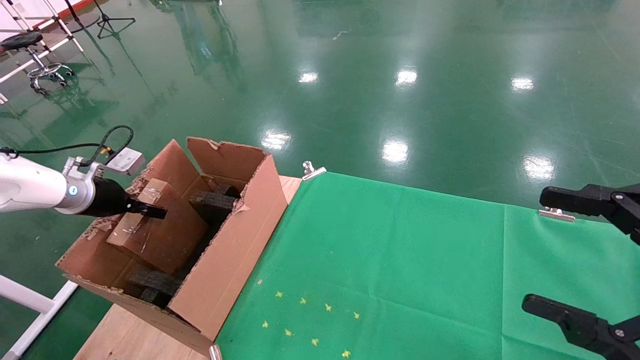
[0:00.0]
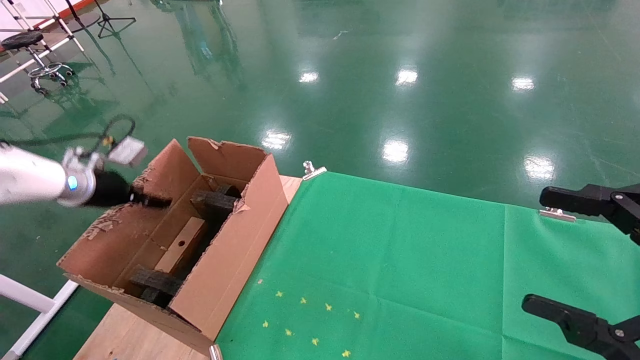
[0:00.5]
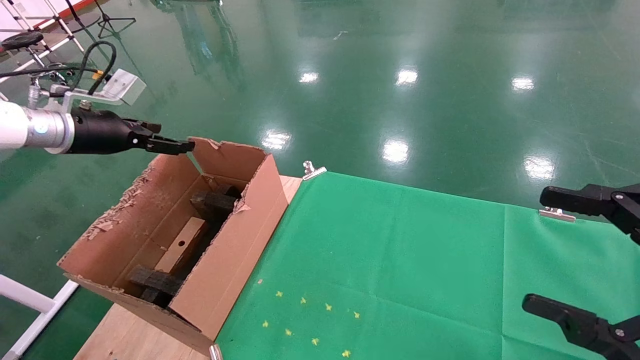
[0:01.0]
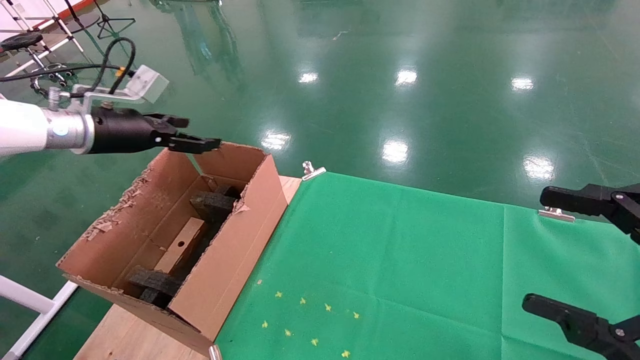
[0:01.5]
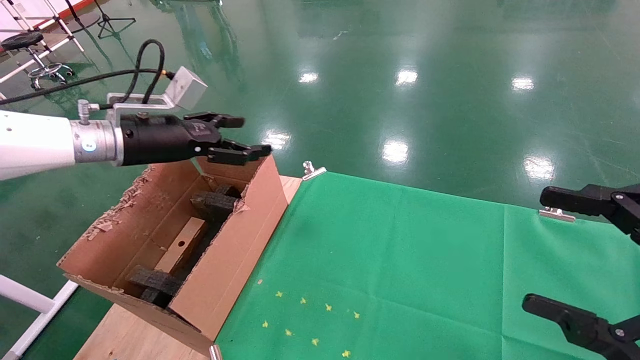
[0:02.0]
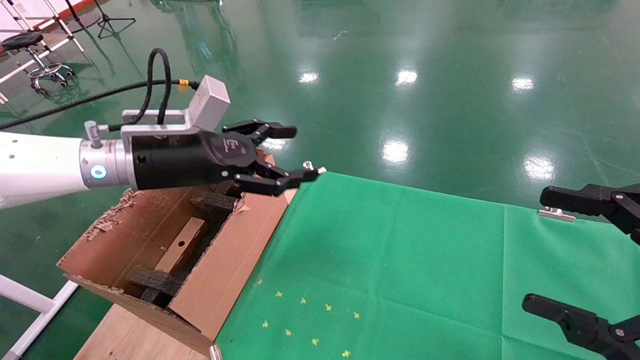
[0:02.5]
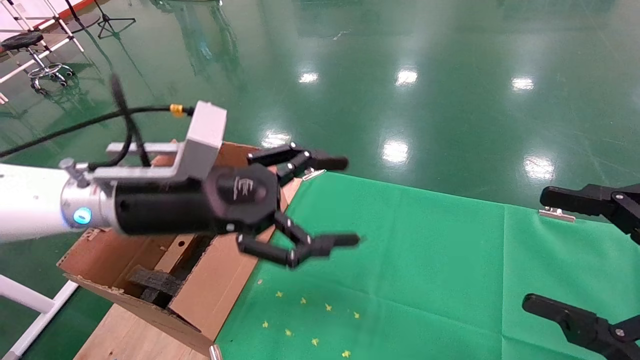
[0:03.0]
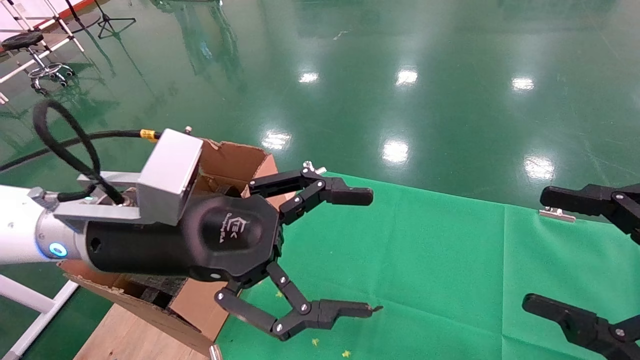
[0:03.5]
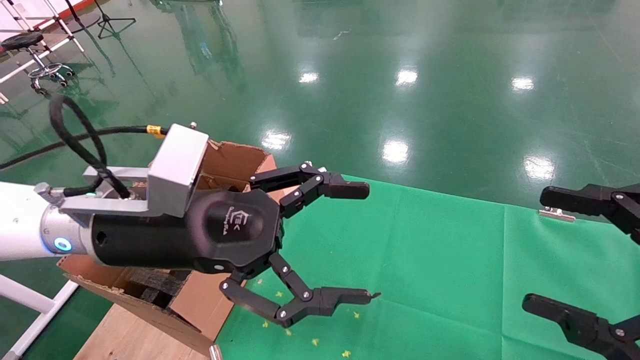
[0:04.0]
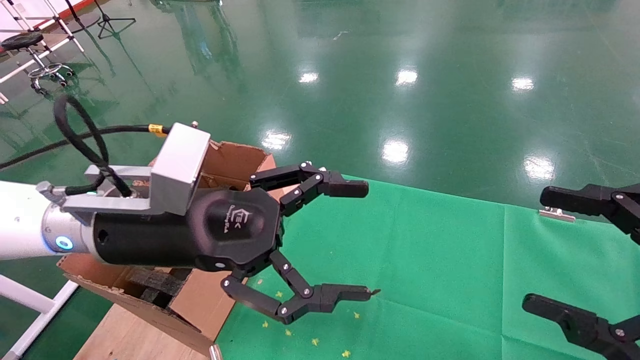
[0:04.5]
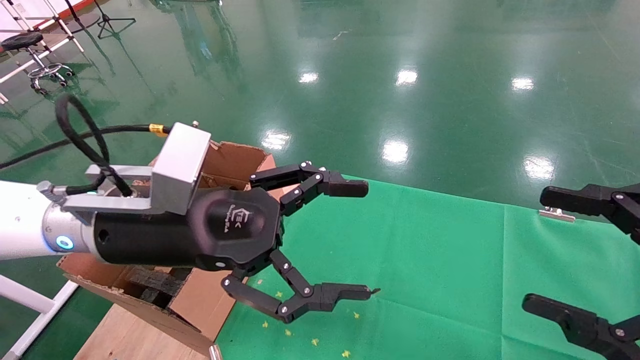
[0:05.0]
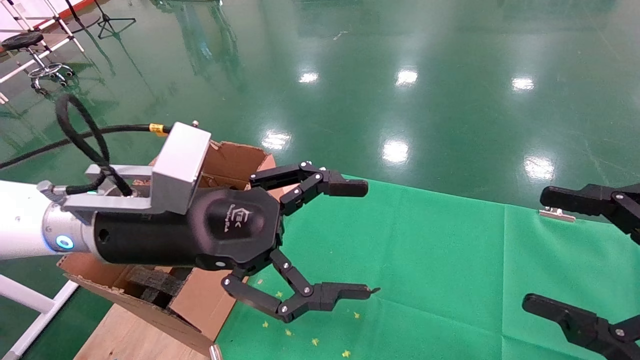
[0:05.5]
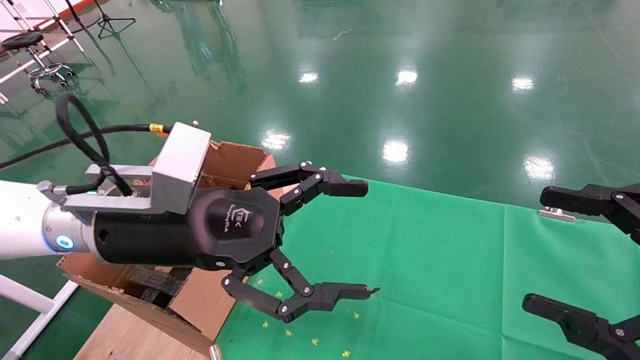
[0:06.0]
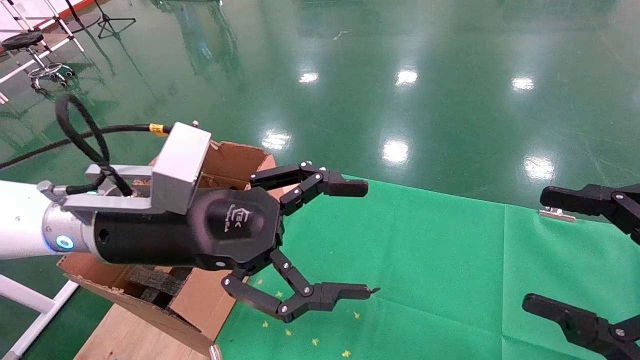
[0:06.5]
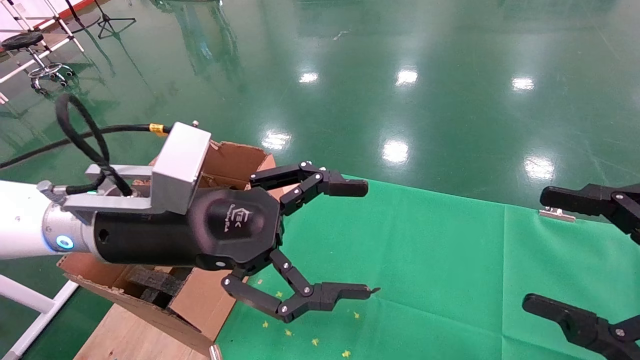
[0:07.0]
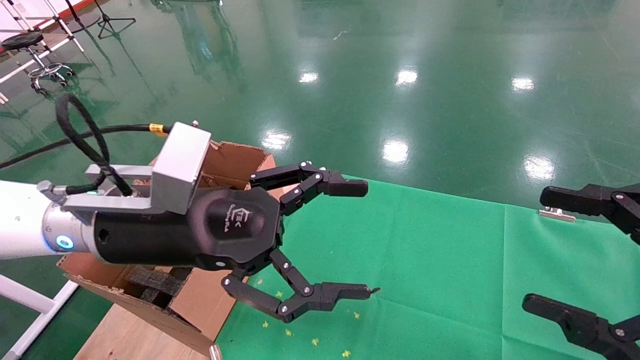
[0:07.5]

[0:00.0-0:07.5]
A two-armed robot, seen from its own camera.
Task of the whole recording: using a robotic arm to pick up a cardboard box and palace it the carton.
0:00.0 to 0:02.0: The left gripper heads to the right and upward, covering some 20 cm, and opens.
0:02.0 to 0:04.0: The left gripper goes some 20 cm to the right and backward.
0:04.0 to 0:07.5: Both grippers stay about where they are.

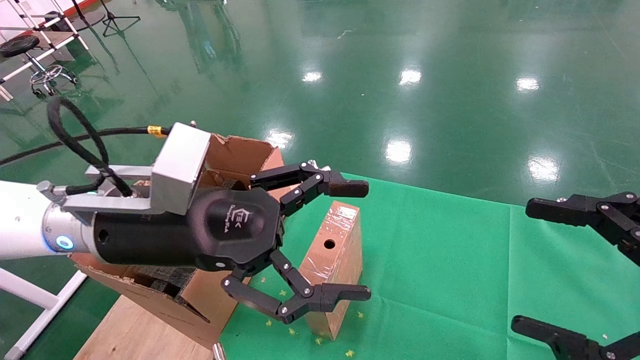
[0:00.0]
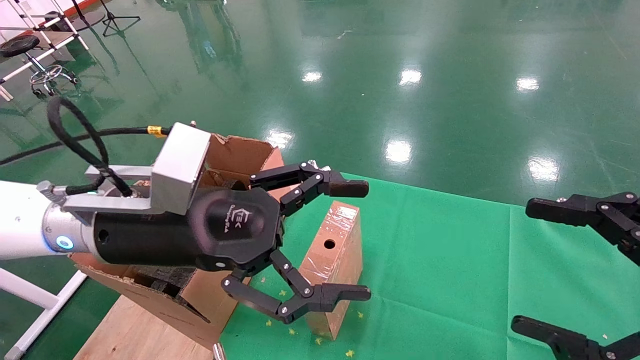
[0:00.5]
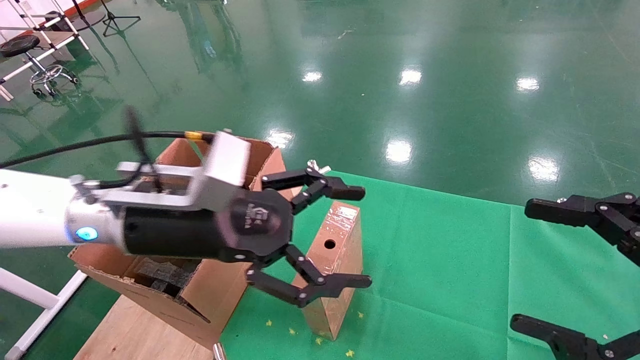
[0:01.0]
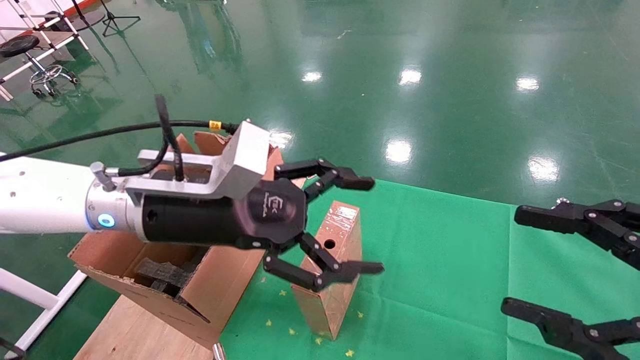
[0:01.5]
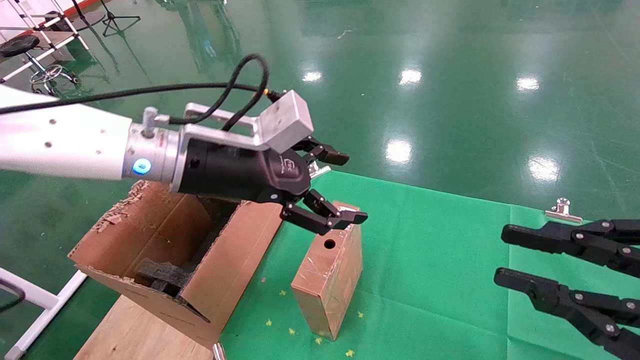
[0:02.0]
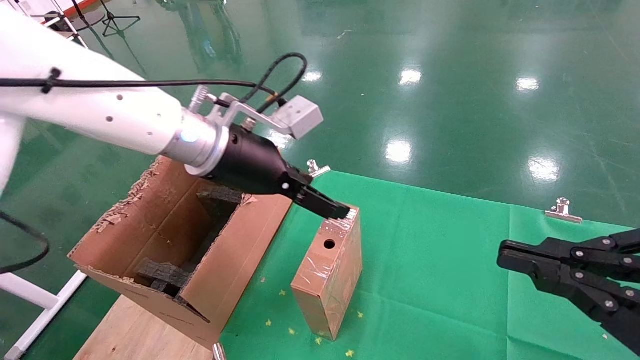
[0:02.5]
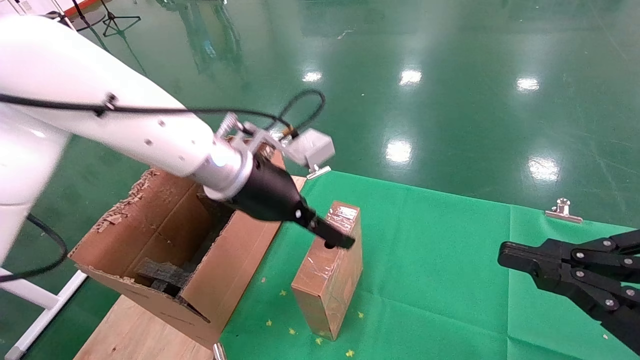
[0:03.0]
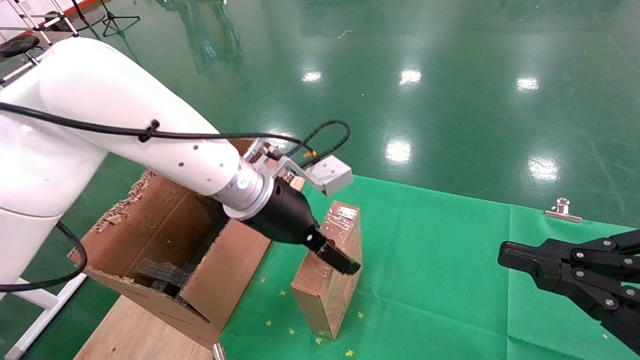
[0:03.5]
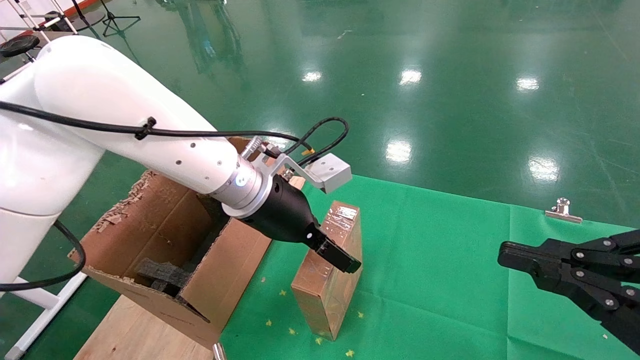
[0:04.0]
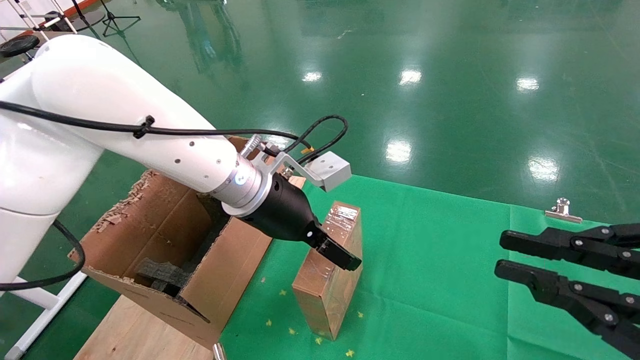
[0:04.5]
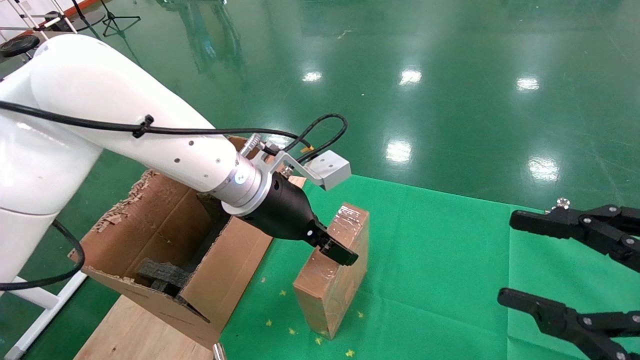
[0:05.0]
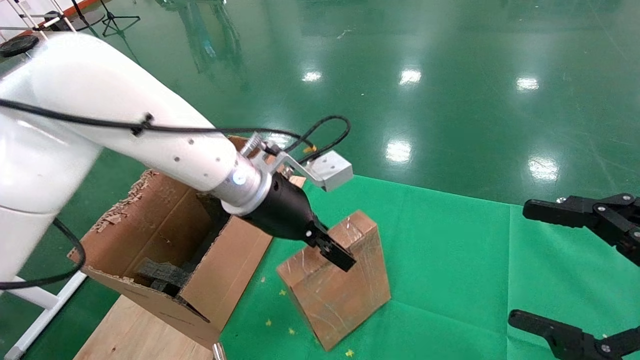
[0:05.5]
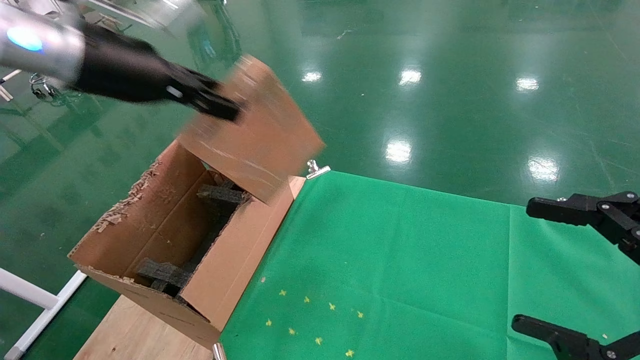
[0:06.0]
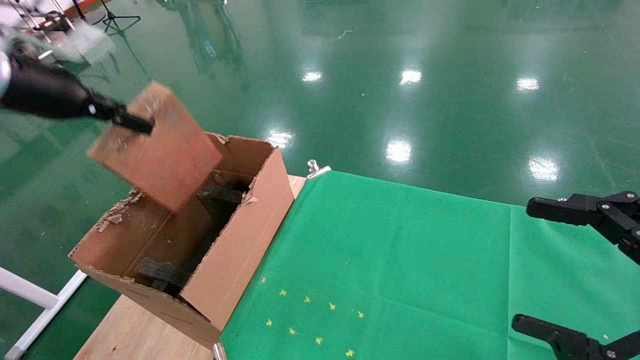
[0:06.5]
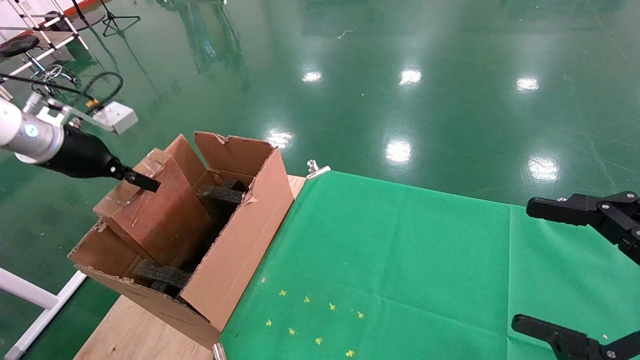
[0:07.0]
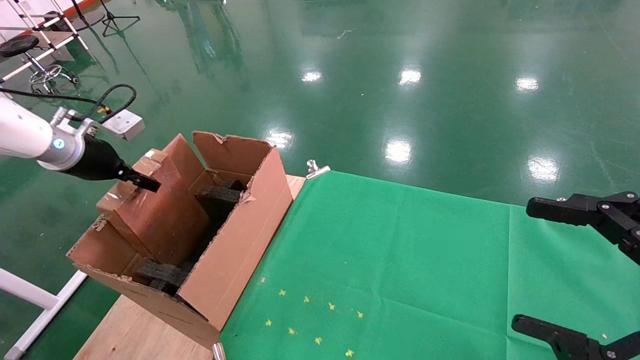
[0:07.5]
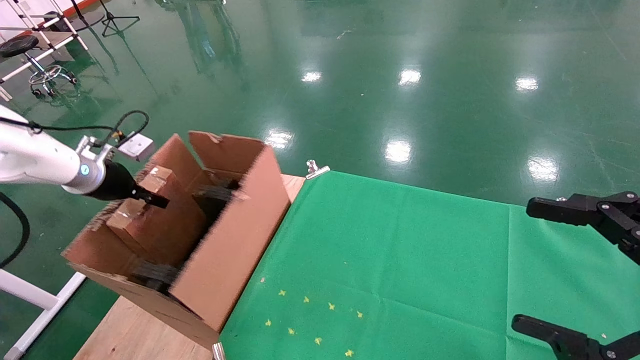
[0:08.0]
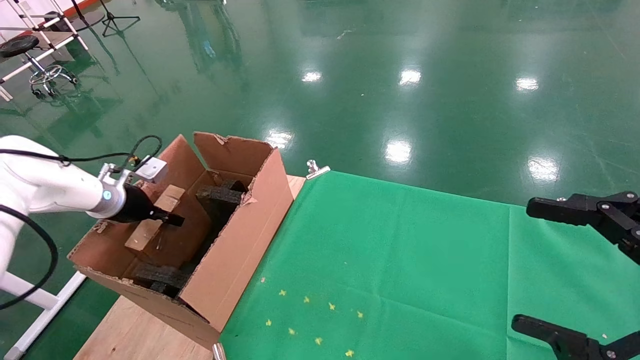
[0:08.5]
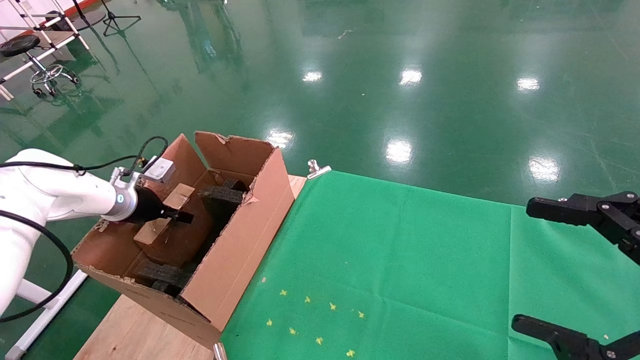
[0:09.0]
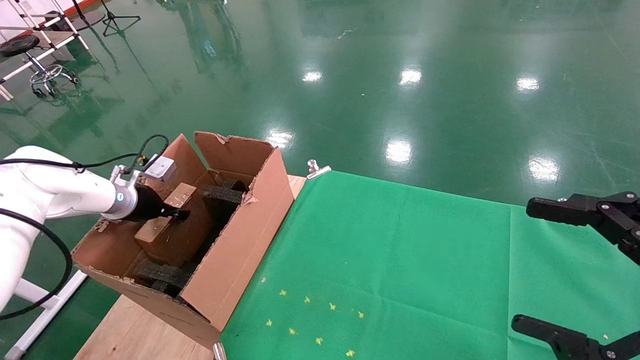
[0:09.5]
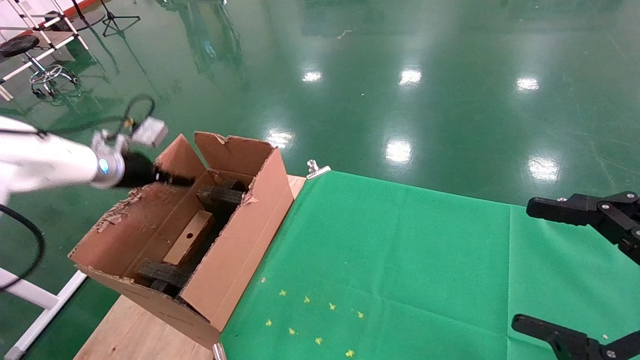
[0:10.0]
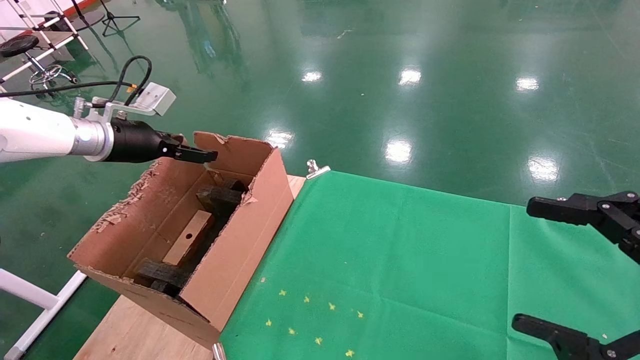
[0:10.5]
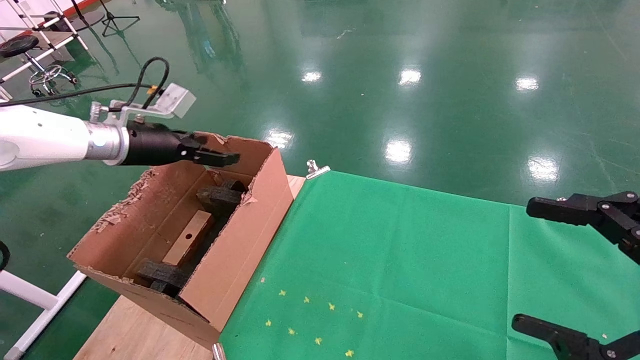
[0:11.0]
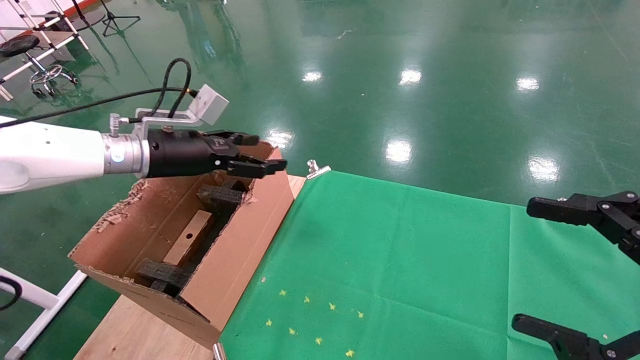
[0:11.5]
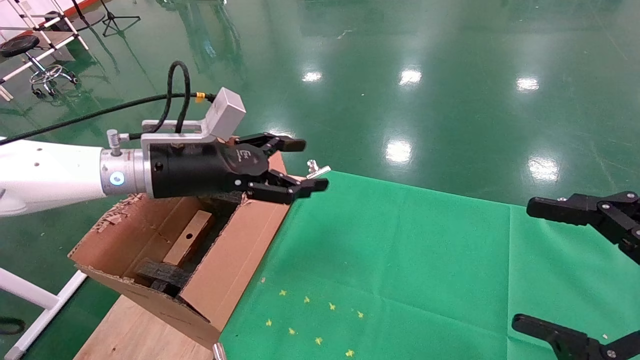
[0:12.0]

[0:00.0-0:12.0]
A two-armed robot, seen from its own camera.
Task of the whole recording: using a robotic arm to pick up a cardboard box and palace it the carton.
Step, 0:01.5 to 0:04.5: Pick up the mouse and the power cord paper box.
Step, 0:05.0 to 0:09.5: Place the mouse and the power cord paper box into the container.
0:00.0 to 0:02.0: The right gripper closes up, while the left gripper heads forward, covering about 10 cm.
0:02.0 to 0:04.0: The right gripper closes up. The left gripper goes approximately 5 cm to the right.
0:04.0 to 0:06.0: The right gripper opens; the left gripper shifts some 25 cm to the left and upward, and closes up.
0:06.0 to 0:08.0: The left gripper goes some 30 cm downward, to the left and forward.
0:08.0 to 0:10.0: The left gripper opens up.
0:10.0 to 0:12.0: The left gripper travels to the right and backward by about 20 cm.
